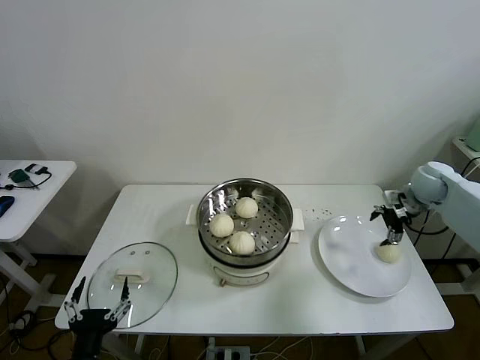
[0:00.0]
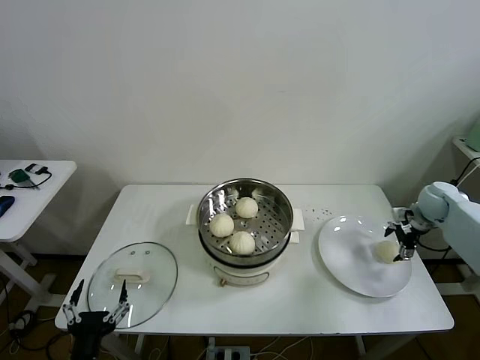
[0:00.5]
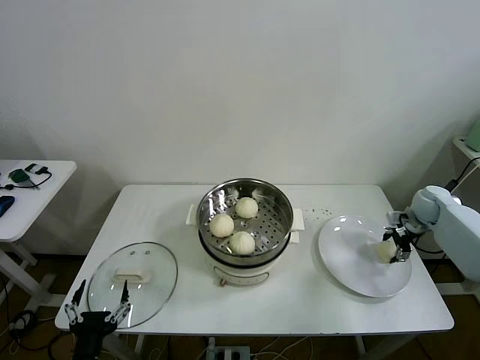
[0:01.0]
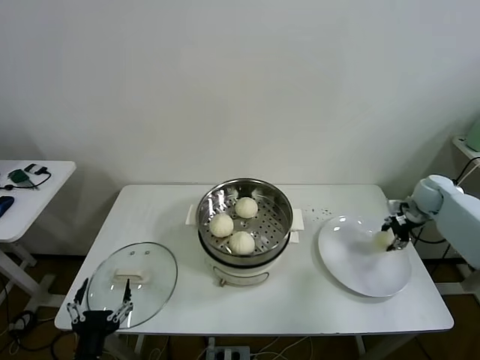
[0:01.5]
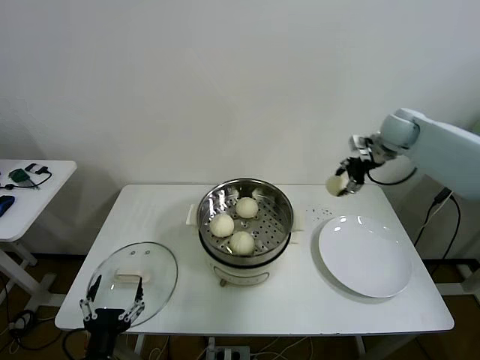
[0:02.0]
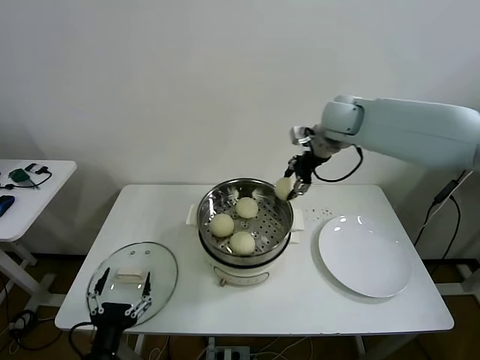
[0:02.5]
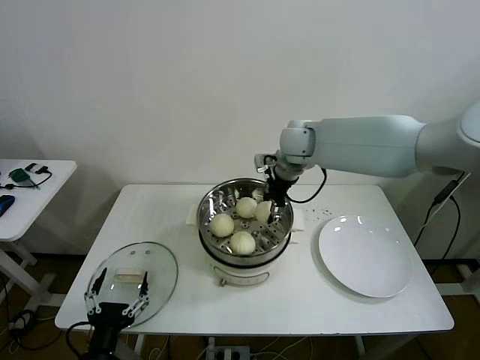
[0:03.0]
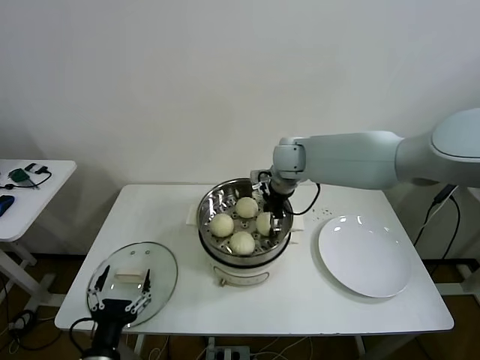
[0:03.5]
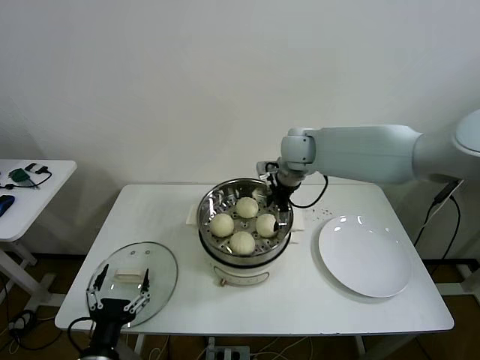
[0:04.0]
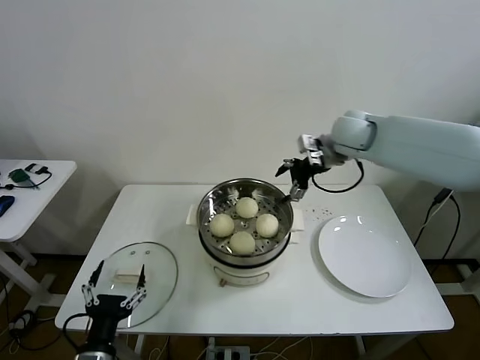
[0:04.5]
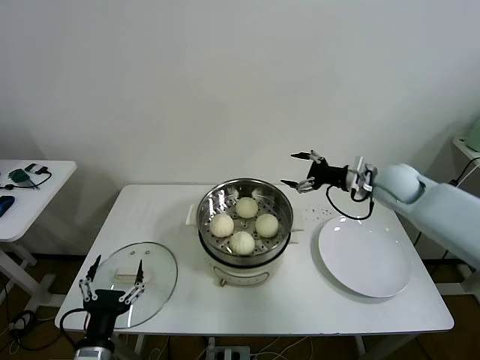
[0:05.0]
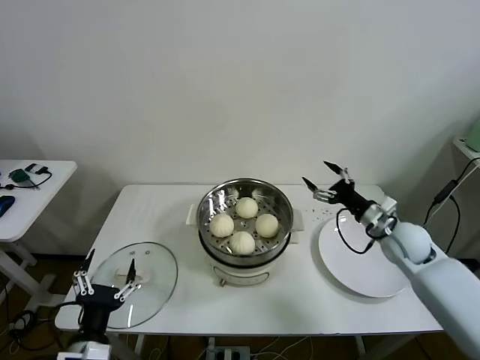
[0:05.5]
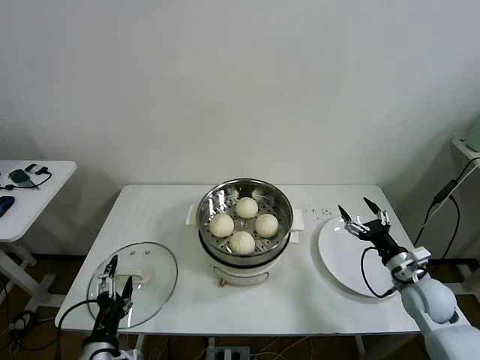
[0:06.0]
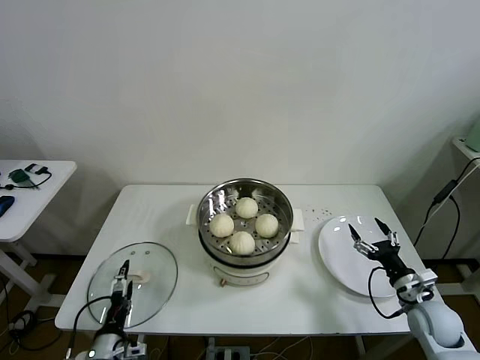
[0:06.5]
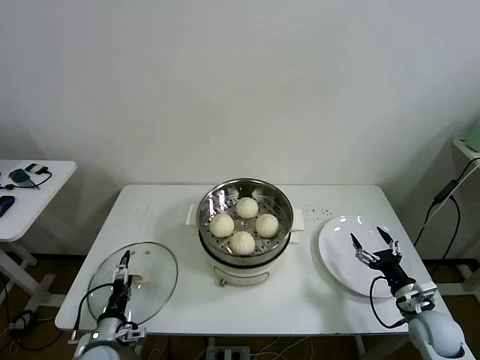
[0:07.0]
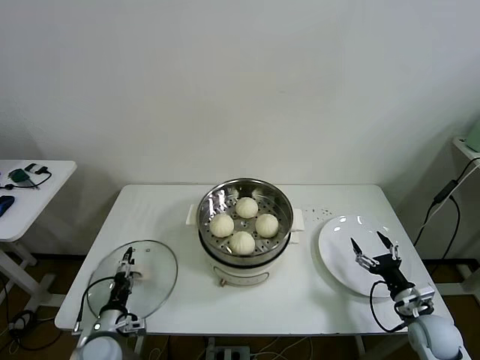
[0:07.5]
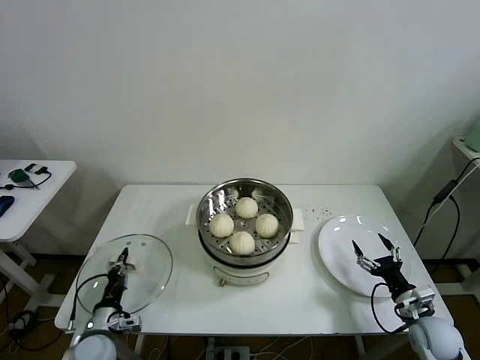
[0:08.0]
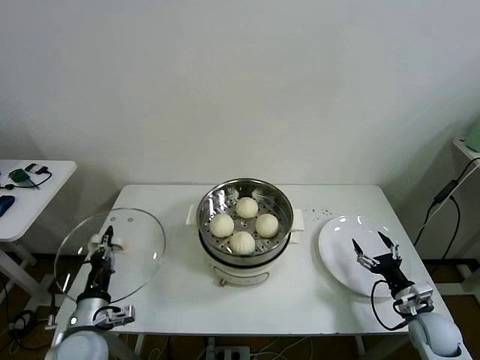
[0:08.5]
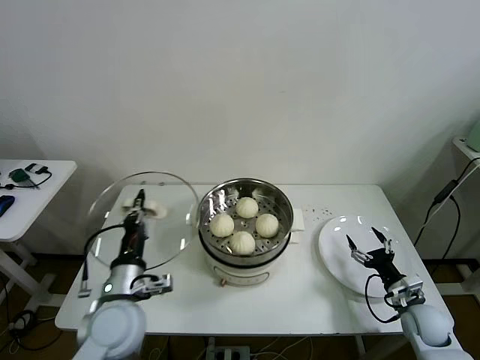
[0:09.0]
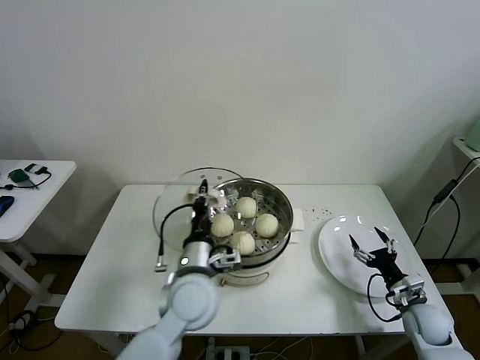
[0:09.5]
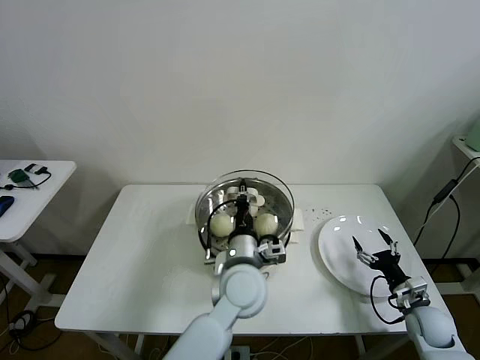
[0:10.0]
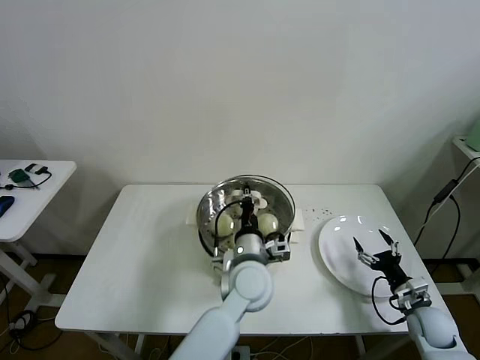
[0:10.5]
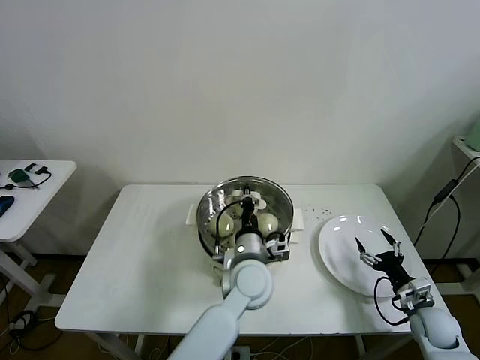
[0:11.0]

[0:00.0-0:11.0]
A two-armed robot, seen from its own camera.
Task of the whole recording: take steamed baozi put them in steamer then cover it.
Step, 0:01.5 to 0:03.5: Place the baozi on the steamer with right gripper.
Step, 0:04.0 to 0:08.0: Grasp the pot lid with left gripper.
0:00.0 to 0:02.0: The right gripper shifts about 20 cm upward, to the left and forward, and closes up.
0:02.0 to 0:03.5: The right gripper goes approximately 25 cm to the left, and opens.
0:03.5 to 0:05.5: The right gripper goes some 35 cm to the right, backward and downward.
0:05.5 to 0:07.5: The left gripper goes about 20 cm downward and forward; the right gripper heads backward and downward, covering approximately 20 cm.
0:07.5 to 0:09.0: The left gripper moves upward and to the right, approximately 20 cm, and closes up.
0:09.0 to 0:11.0: The left gripper heads to the right, covering roughly 25 cm.

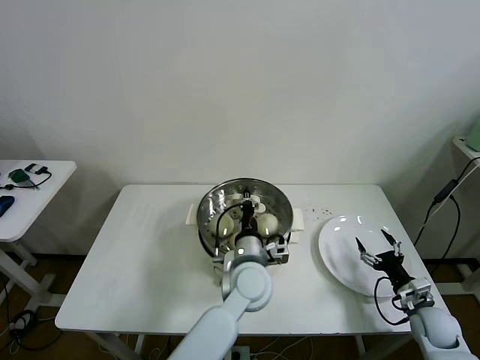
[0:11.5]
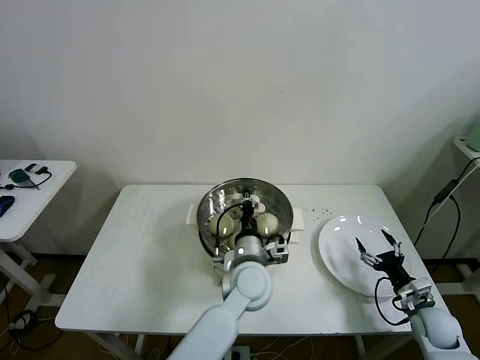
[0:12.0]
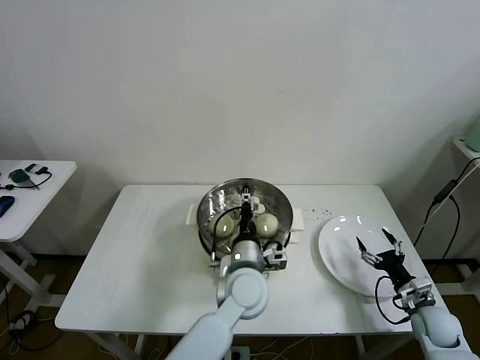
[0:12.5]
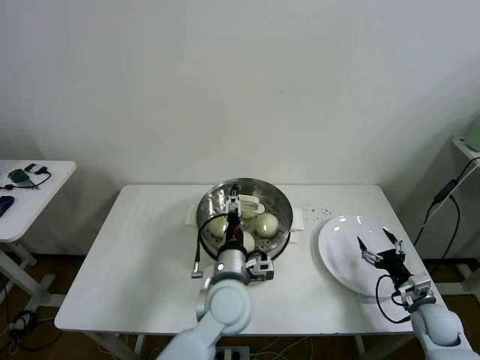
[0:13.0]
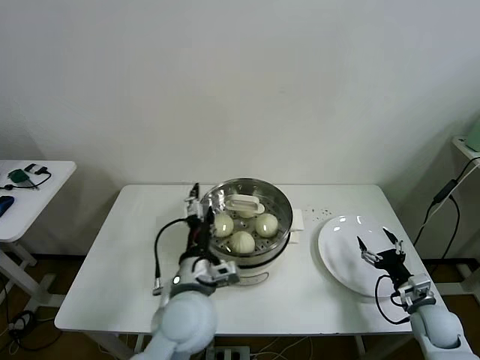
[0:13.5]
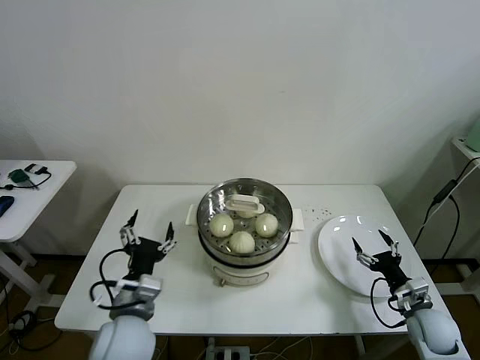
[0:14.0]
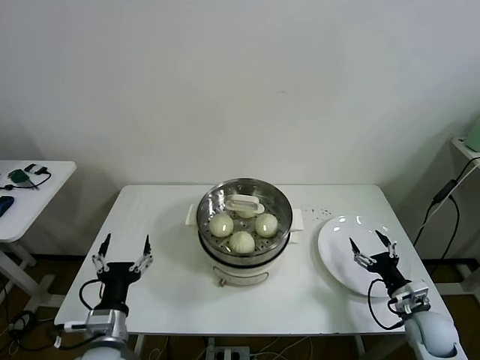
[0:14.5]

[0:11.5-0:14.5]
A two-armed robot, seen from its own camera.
Task of the whole recording: take steamed baozi put them in steamer then cover it.
0:11.5 to 0:13.0: The left gripper moves roughly 5 cm, and opens up.
0:13.0 to 0:14.5: The left gripper shifts some 25 cm to the left and backward.
